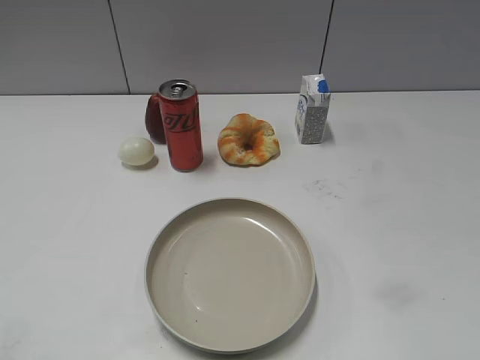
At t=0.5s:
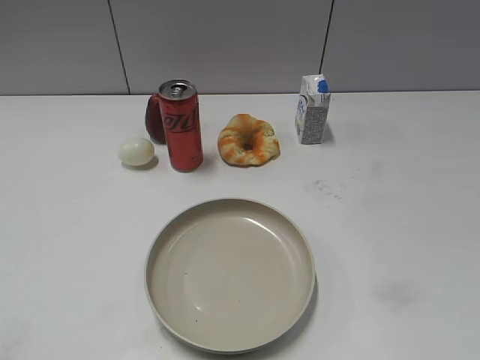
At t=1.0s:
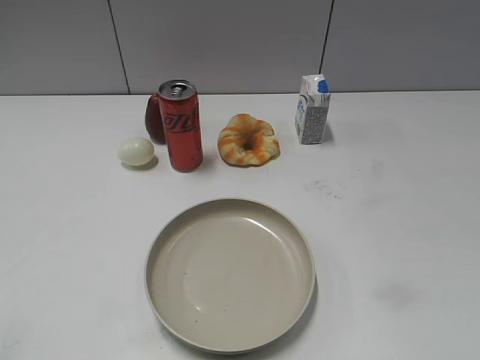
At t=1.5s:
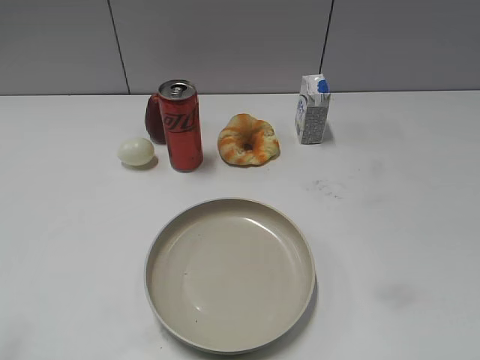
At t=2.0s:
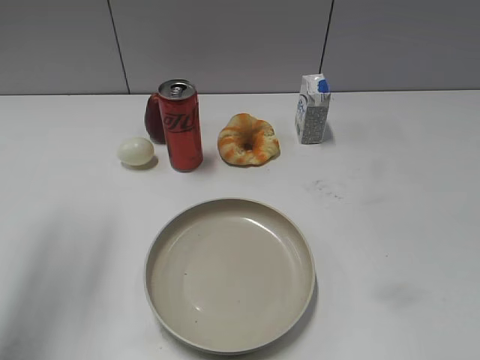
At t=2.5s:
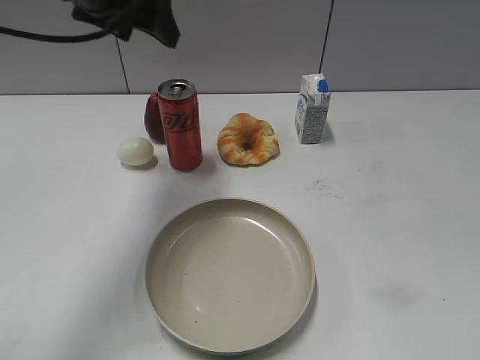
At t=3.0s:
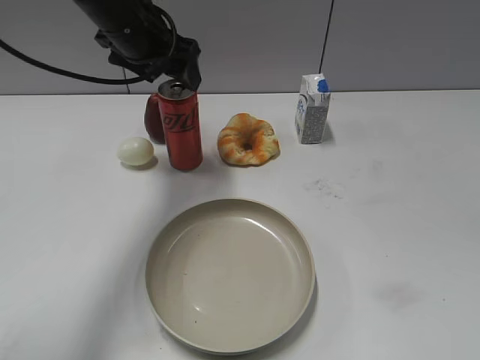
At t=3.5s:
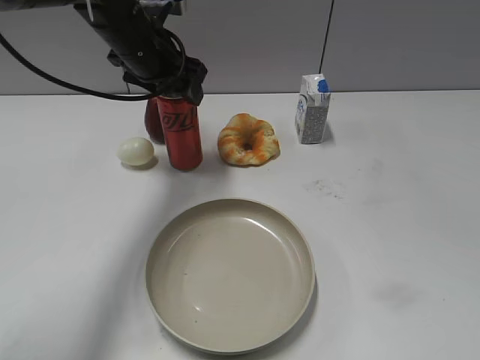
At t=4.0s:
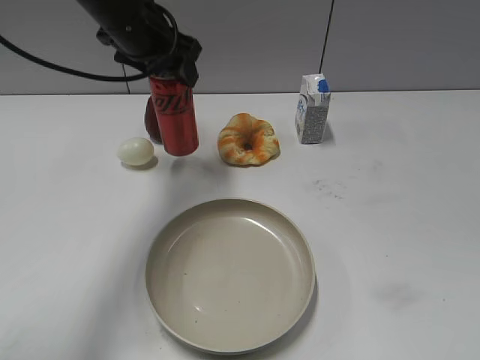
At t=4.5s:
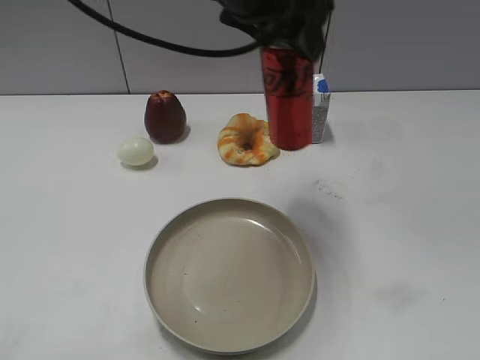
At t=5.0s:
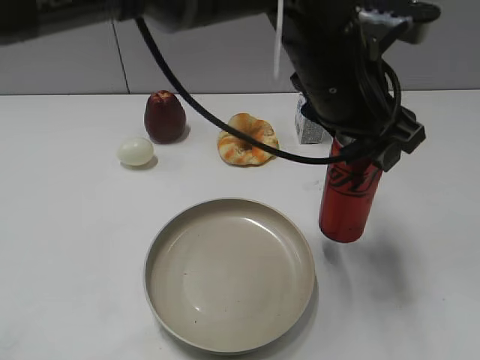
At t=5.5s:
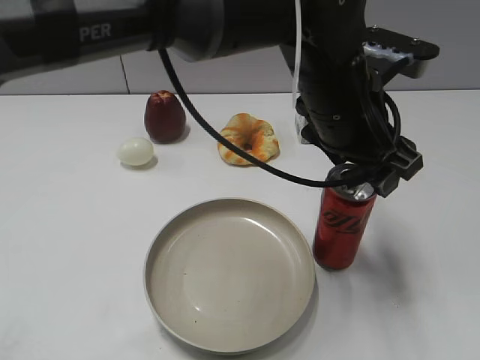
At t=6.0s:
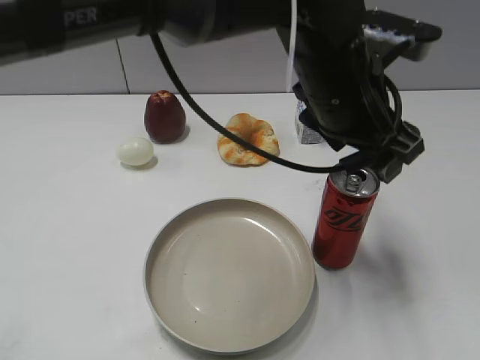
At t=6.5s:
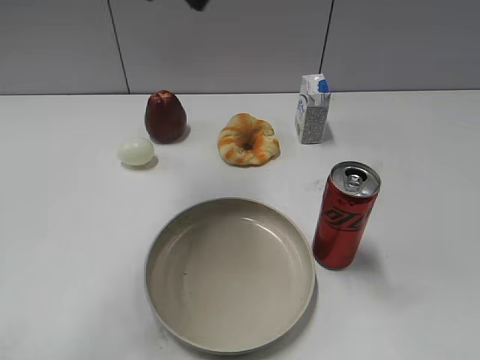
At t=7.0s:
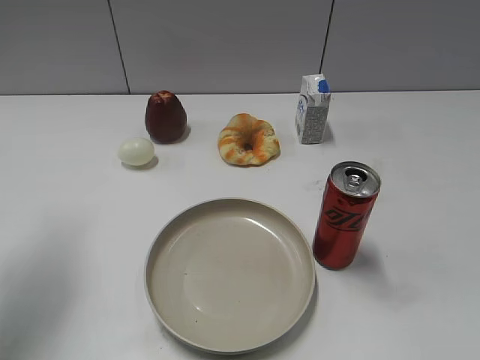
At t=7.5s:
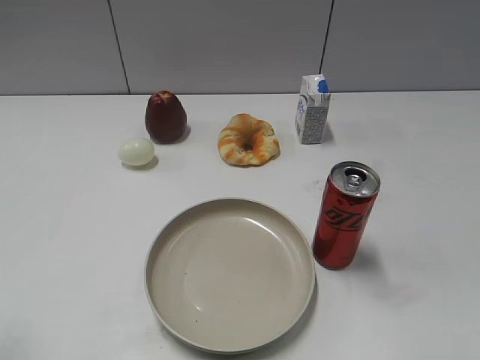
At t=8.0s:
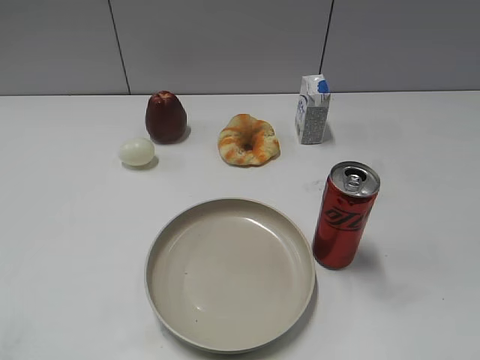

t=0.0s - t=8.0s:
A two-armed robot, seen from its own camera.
Step, t=0.0s - t=3.5s: Grasp the cola with left gripper.
Step, t=4.0s - t=6.0s: Place the cola on the table with left gripper.
t=2.0s - t=4.0s: The left gripper shifts some 30 cm forward, to the right and downward, and closes up.
t=4.0s - t=6.0s: The left gripper moves to the right and backward, roughly 25 cm, and opens.
t=6.0s - t=8.0s: The left gripper heads to the left and backward, covering roughly 50 cm.
